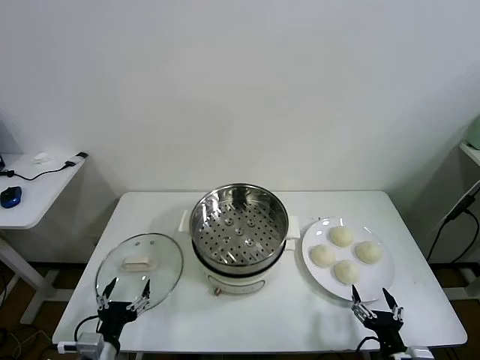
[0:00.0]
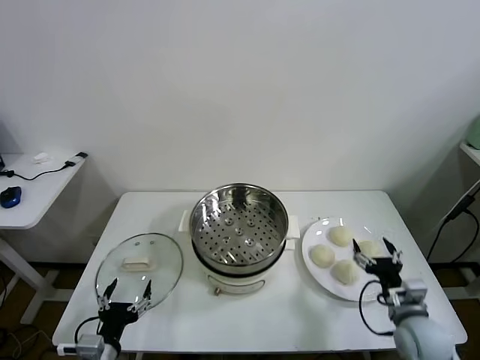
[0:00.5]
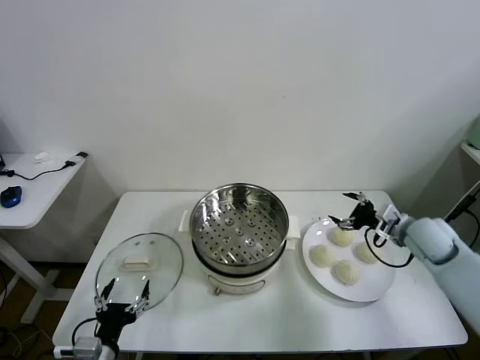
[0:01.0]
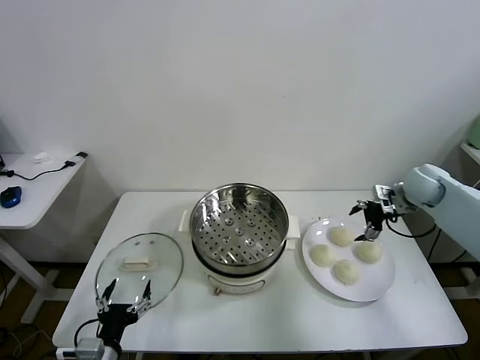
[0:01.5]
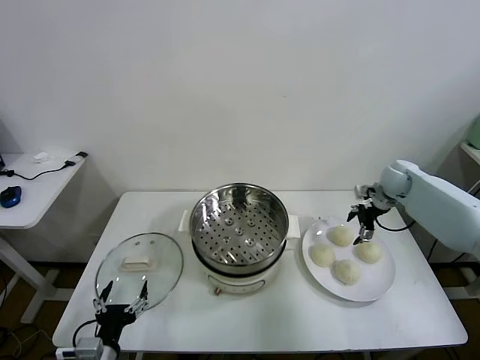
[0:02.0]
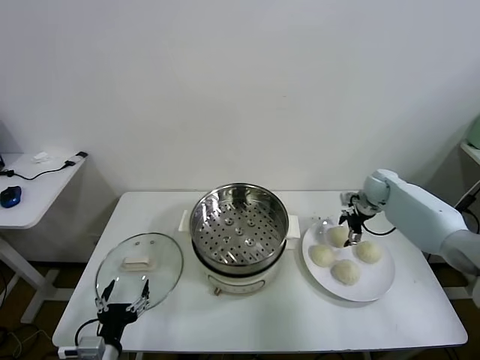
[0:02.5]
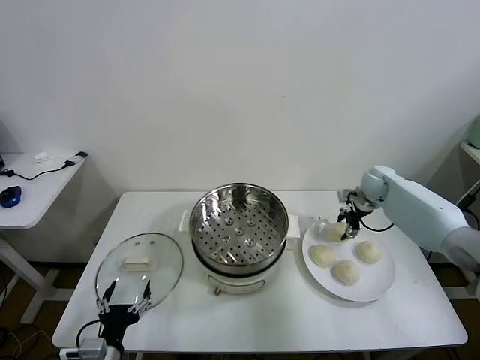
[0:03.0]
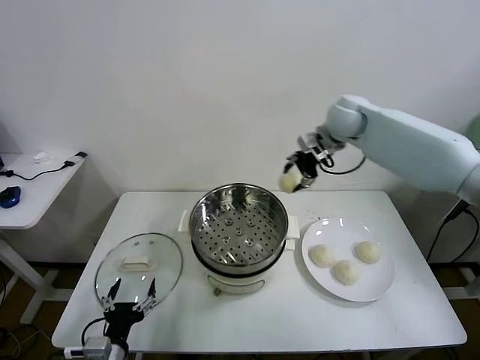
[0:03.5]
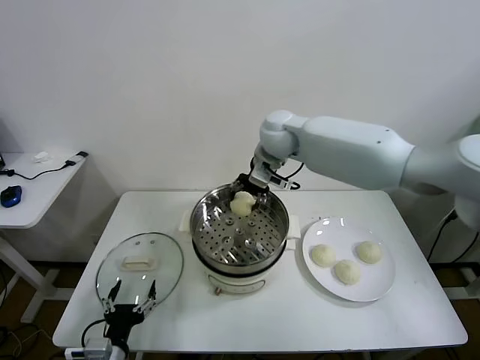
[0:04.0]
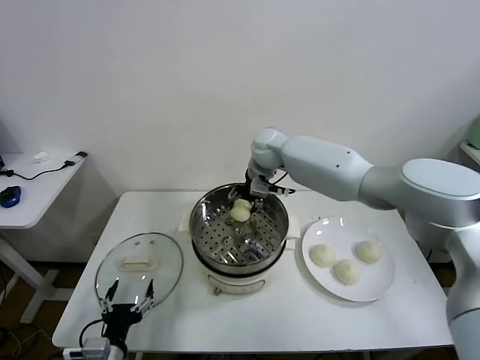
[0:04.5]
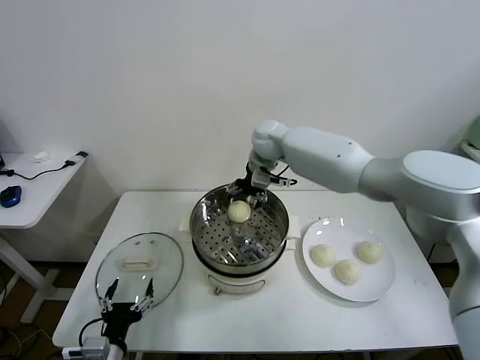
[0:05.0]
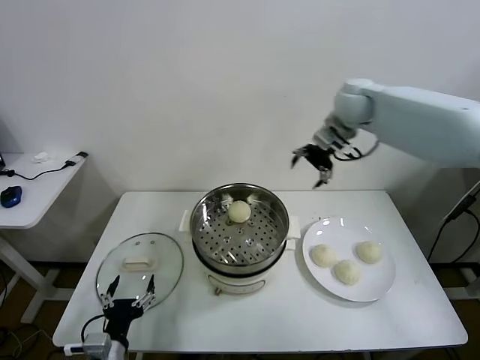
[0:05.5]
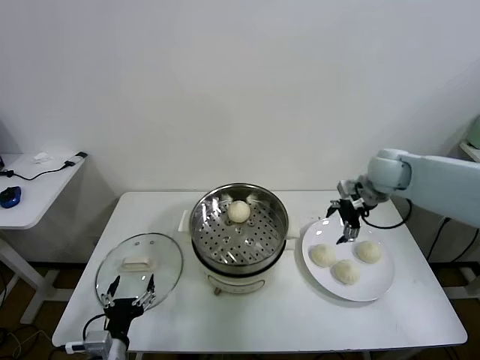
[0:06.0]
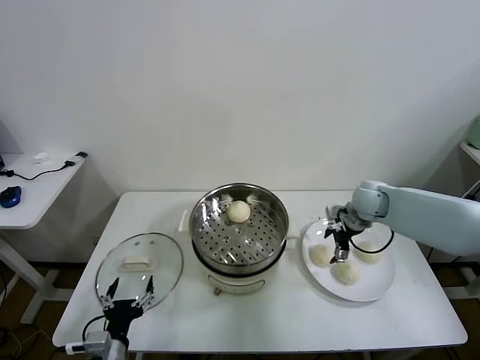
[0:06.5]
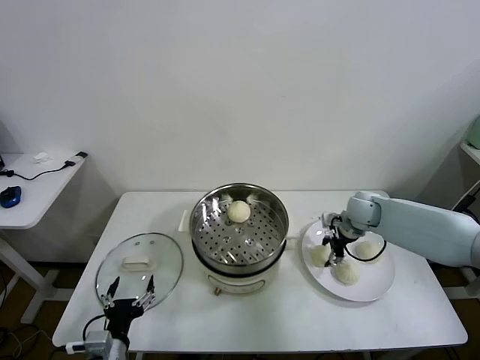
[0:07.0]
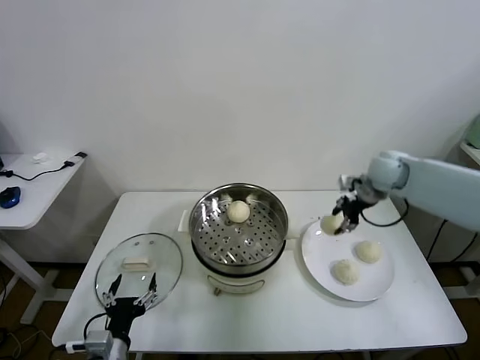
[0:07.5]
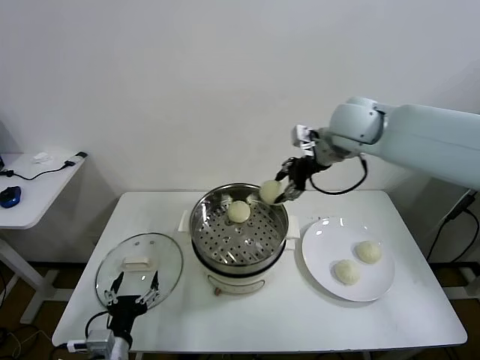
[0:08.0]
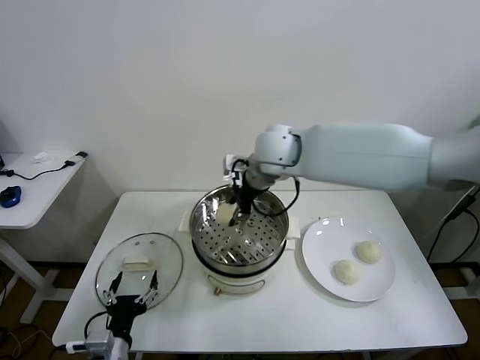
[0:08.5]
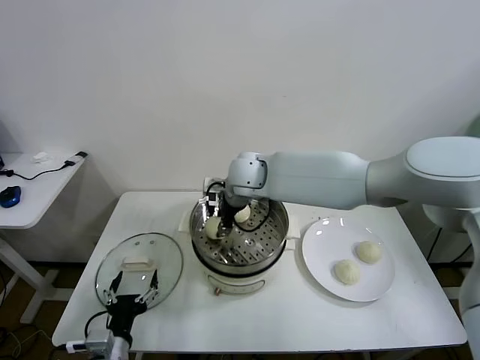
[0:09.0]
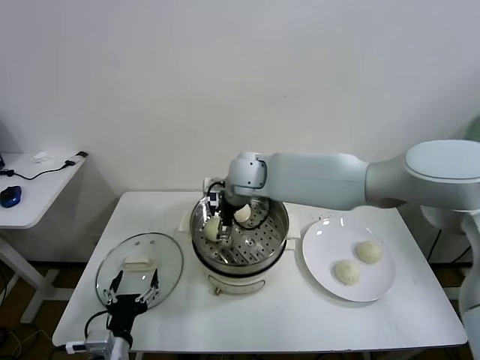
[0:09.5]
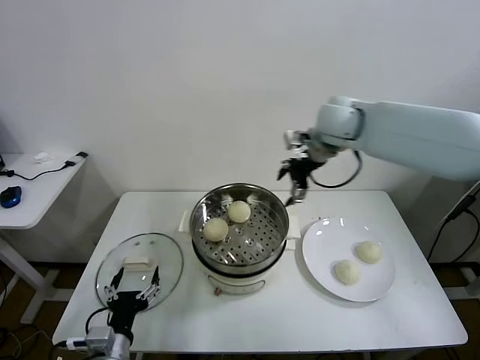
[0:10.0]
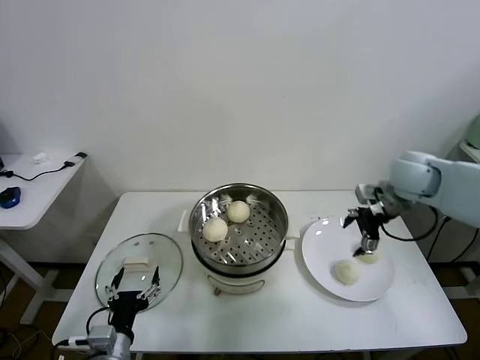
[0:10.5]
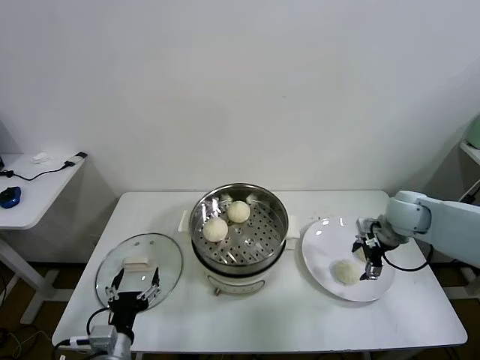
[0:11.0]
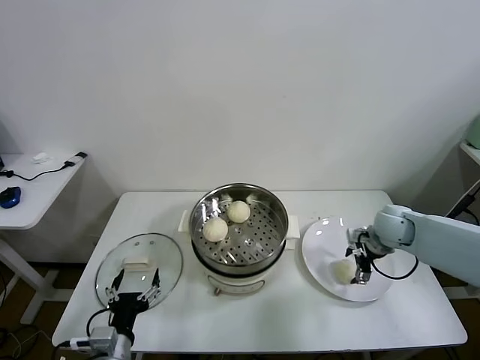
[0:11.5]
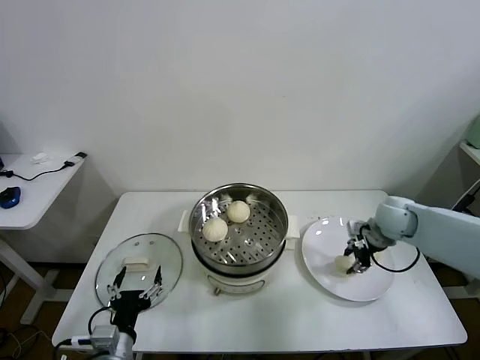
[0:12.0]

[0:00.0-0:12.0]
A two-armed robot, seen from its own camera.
Task of the whole recording: take steamed baozi put them in steamer.
Step, 0:00.0 to 0:02.5: Grasp the baozi in the plate with right gripper.
Step, 0:03.0 to 0:05.0: Place the baozi on the steamer with right gripper.
Step, 0:05.5 to 0:07.0: Grasp the baozi in the plate with right gripper.
Step, 0:07.5 to 0:09.5: Place the baozi on the steamer with right gripper.
Step, 0:10.0 to 0:11.5: Grasp the baozi in the plate with right gripper.
0:02.0 to 0:04.0: The right gripper moves to the left and upward, about 35 cm, and closes its fingers.
0:04.0 to 0:06.0: The right gripper travels to the right by approximately 25 cm, and opens up.
0:06.0 to 0:08.0: The right gripper is displaced upward and to the left by about 20 cm, and closes up.
0:08.0 to 0:10.0: The right gripper moves roughly 15 cm to the left and comes back, and opens.
0:10.0 to 0:12.0: The right gripper travels downward and to the right by roughly 25 cm, and closes.

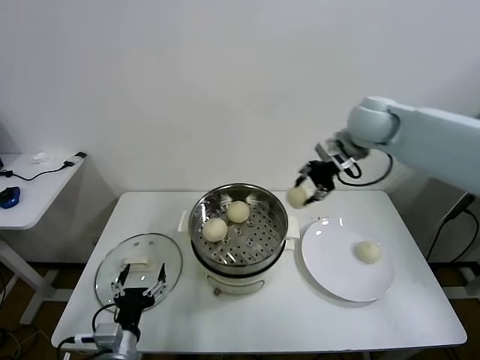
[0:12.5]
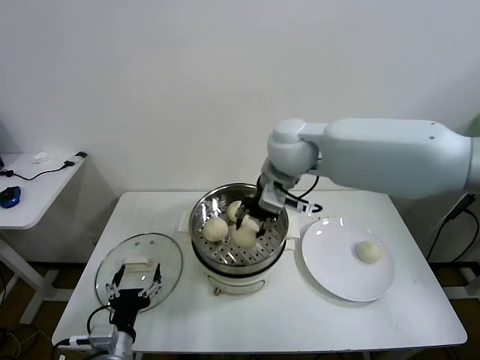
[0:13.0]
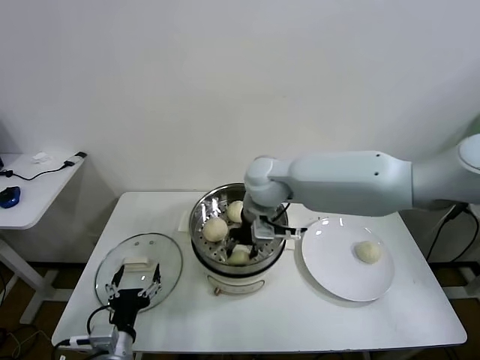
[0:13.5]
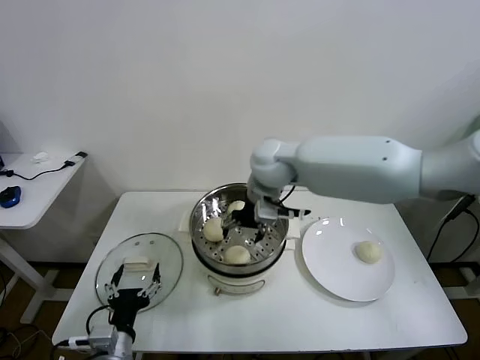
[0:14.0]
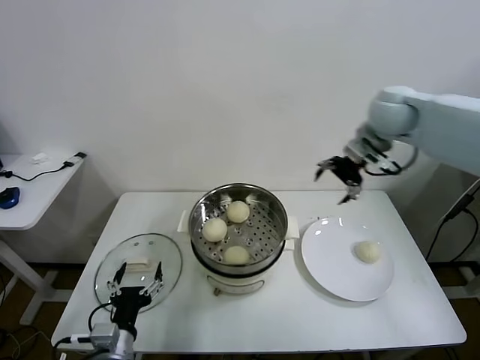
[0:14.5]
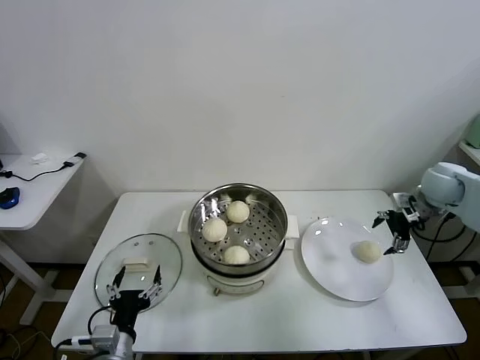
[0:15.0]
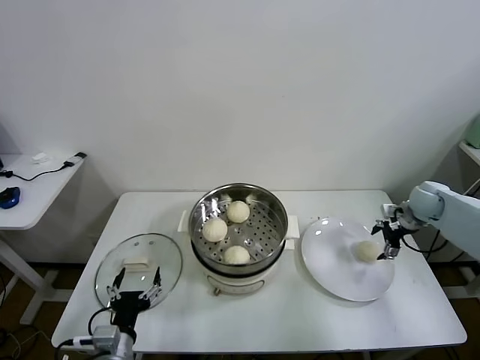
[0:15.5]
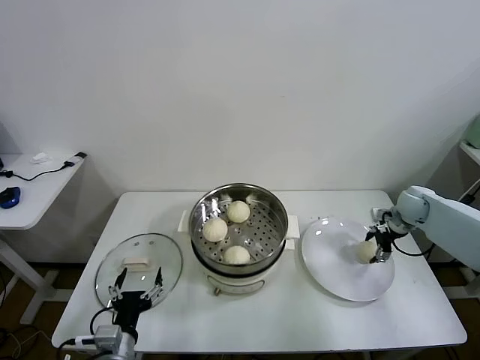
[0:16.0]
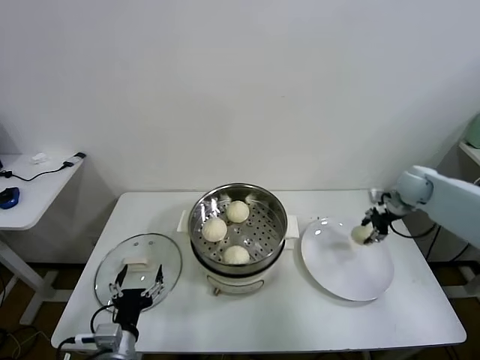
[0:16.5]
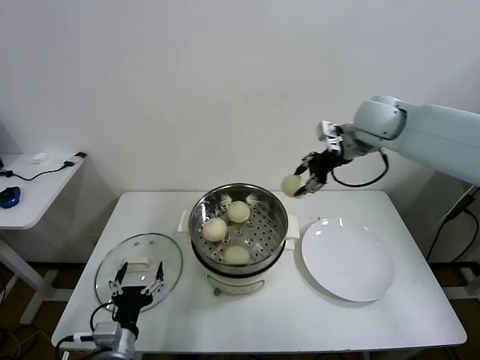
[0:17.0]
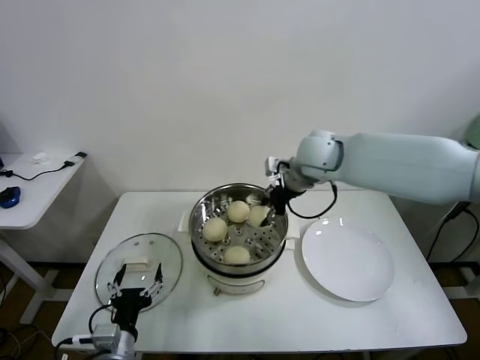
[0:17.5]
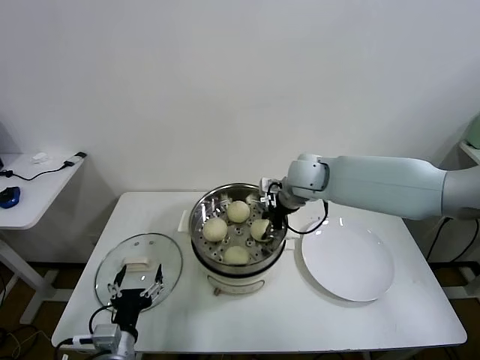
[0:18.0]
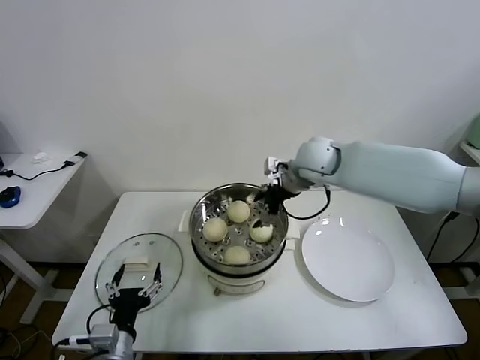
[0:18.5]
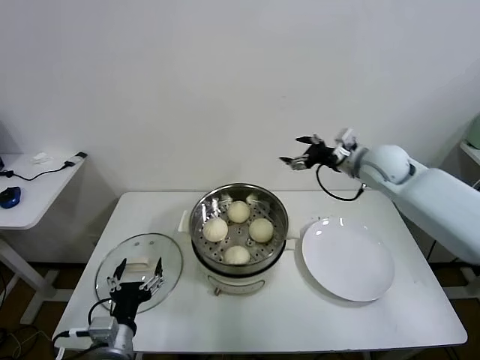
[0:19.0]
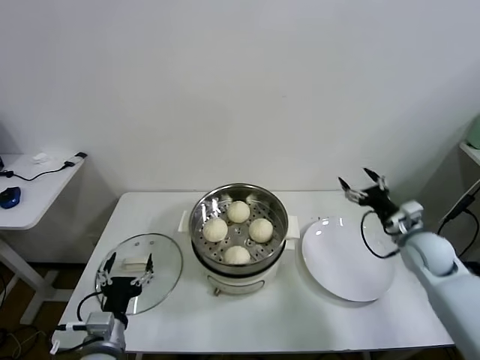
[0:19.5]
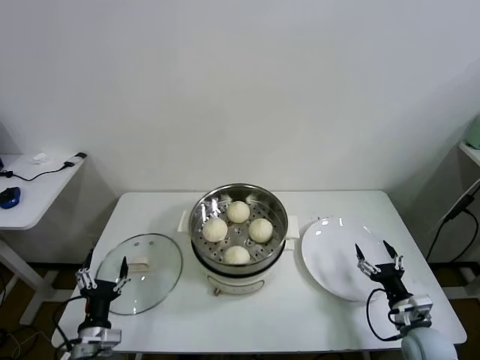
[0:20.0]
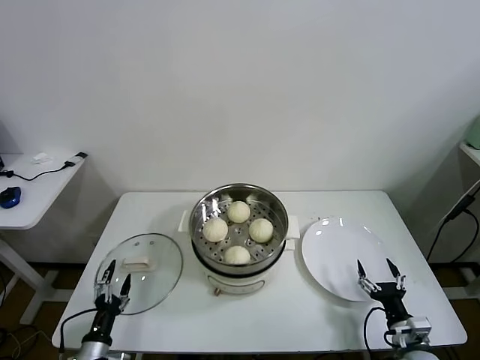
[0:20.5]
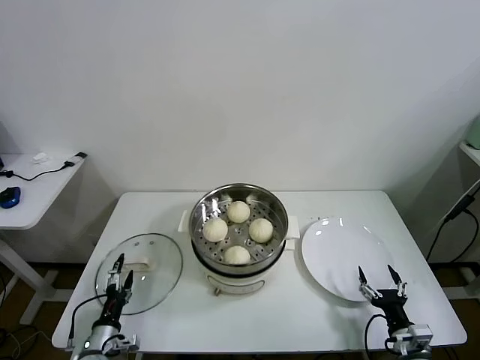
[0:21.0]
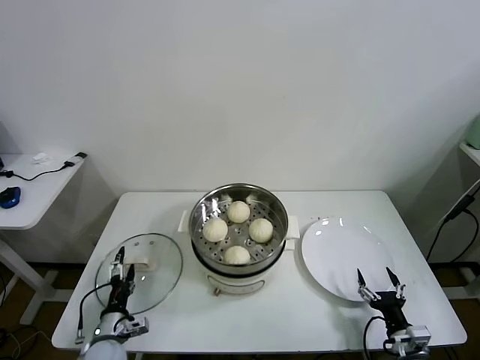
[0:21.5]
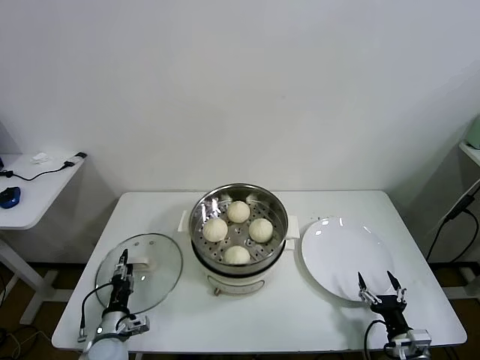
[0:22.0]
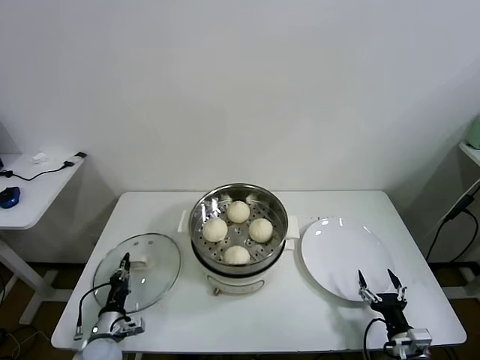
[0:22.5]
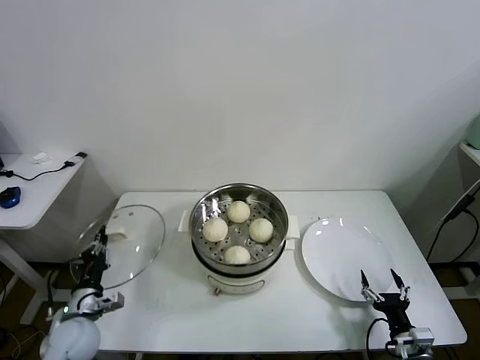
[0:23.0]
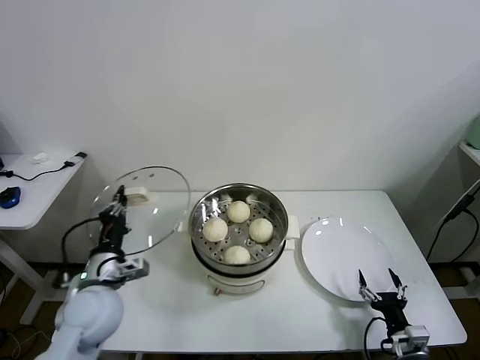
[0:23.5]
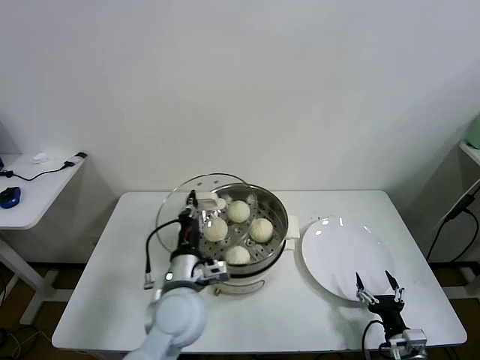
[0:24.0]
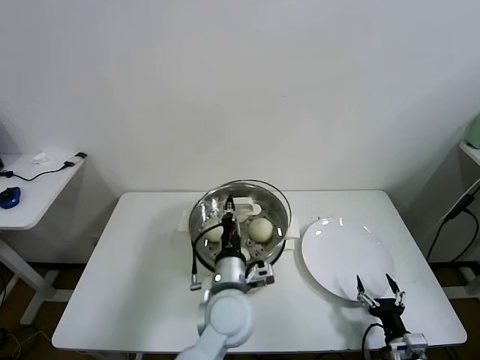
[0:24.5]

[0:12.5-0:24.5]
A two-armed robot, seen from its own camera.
Task of the whole recording: take steamed baozi put them in steamer.
Step, 0:14.0 to 0:16.0: Grasp the baozi in the plate with right gripper.
Step, 0:16.5 to 0:18.0: Place the baozi on the steamer with right gripper.
Step, 0:18.5 to 0:22.0: Grasp the pot lid with left gripper.
0:12.5 to 0:14.5: The right gripper moves some 20 cm to the left and comes back, and opens up.
0:14.5 to 0:16.5: The right gripper shifts some 25 cm downward and to the right, and closes.
0:16.5 to 0:18.5: The right gripper heads to the left, covering some 25 cm, and opens up.
0:18.5 to 0:20.5: The right gripper is displaced downward, backward and to the right by some 50 cm. The left gripper moves downward and to the left, some 15 cm.
0:20.5 to 0:22.5: The left gripper moves forward, some 10 cm, and closes up.
0:22.5 to 0:24.5: The left gripper is displaced to the right and upward by roughly 40 cm.

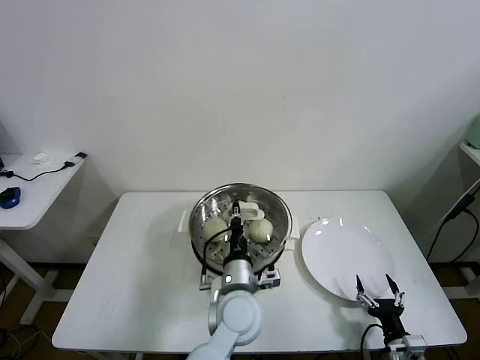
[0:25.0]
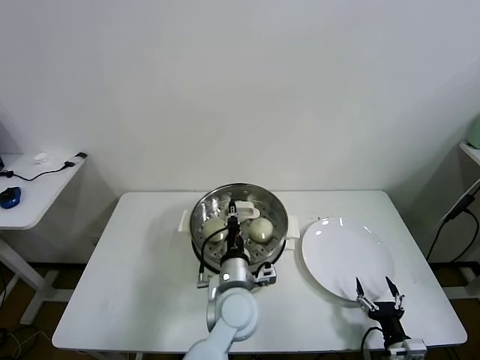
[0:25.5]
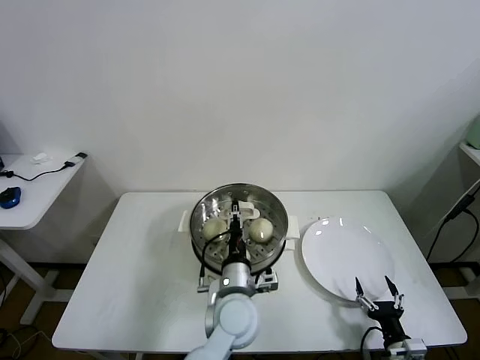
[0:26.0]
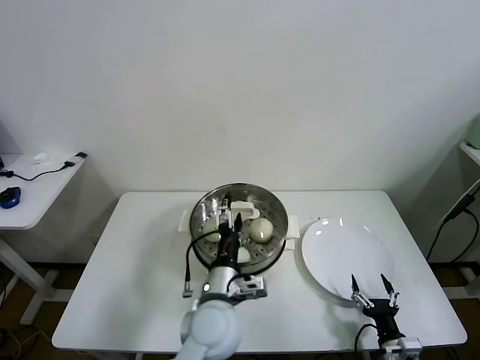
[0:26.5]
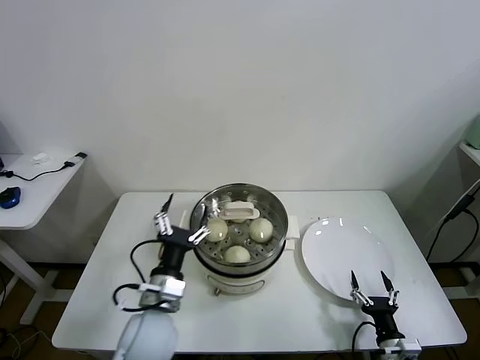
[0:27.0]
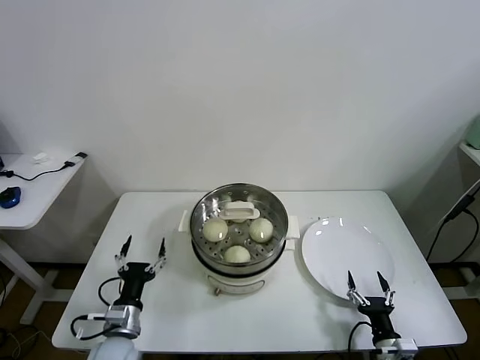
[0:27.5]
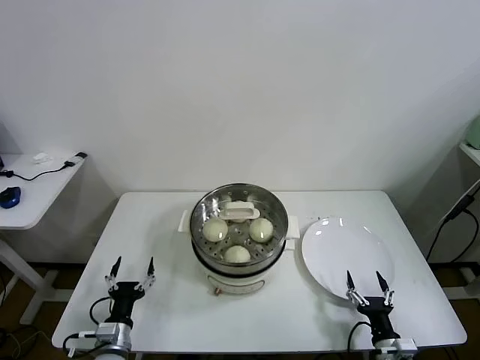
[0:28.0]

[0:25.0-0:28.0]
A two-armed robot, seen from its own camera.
Task of the whole recording: take steamed baozi put them in steamer.
0:25.0 to 0:26.5: The left gripper opens its fingers.
0:26.5 to 0:28.0: The left gripper goes about 30 cm to the left and downward.
